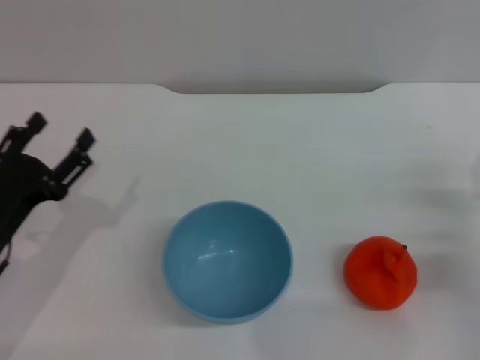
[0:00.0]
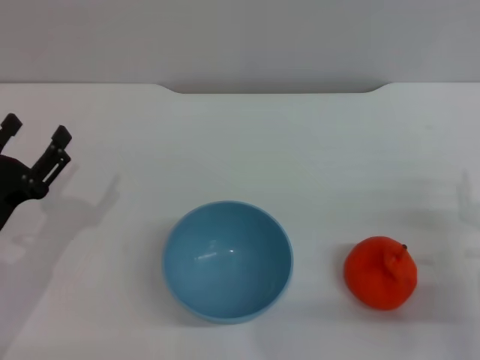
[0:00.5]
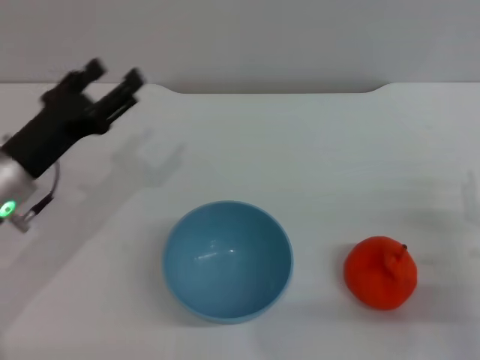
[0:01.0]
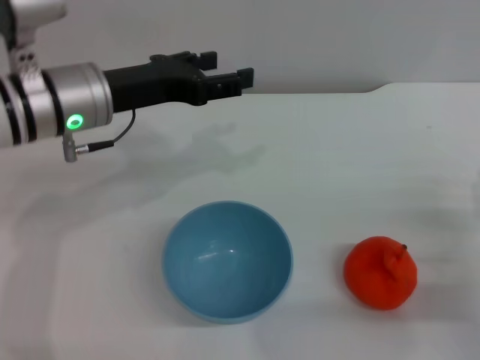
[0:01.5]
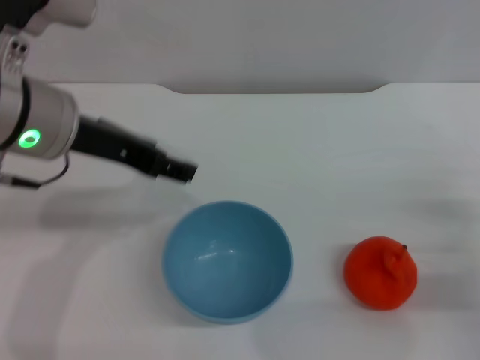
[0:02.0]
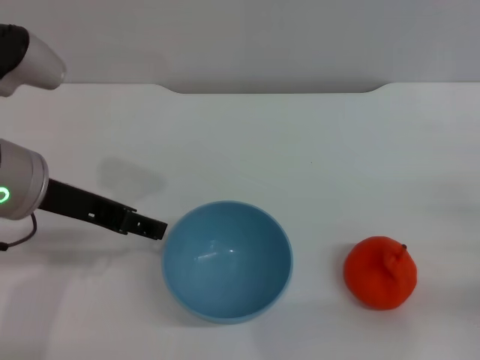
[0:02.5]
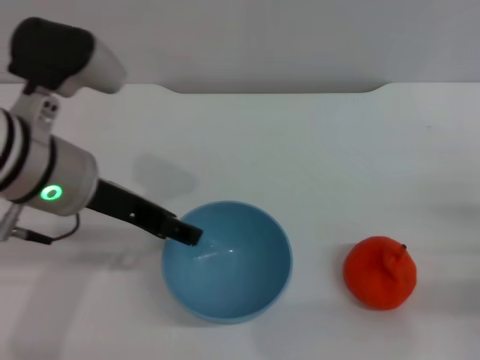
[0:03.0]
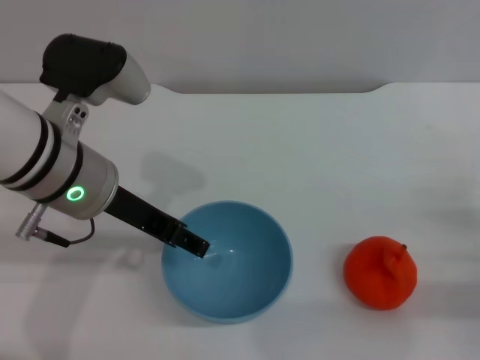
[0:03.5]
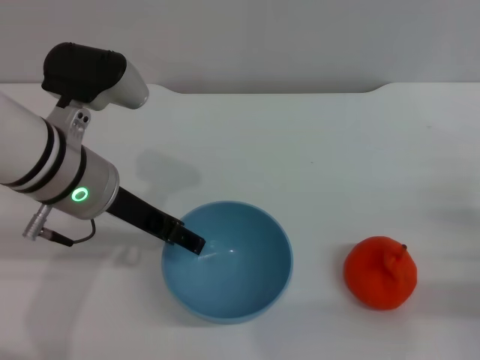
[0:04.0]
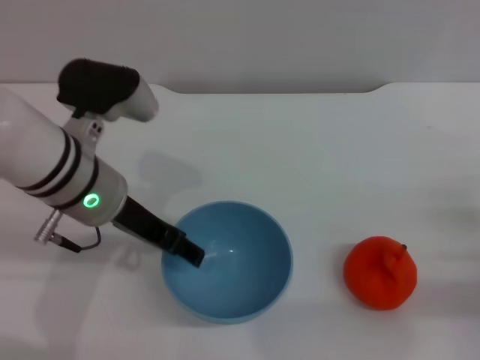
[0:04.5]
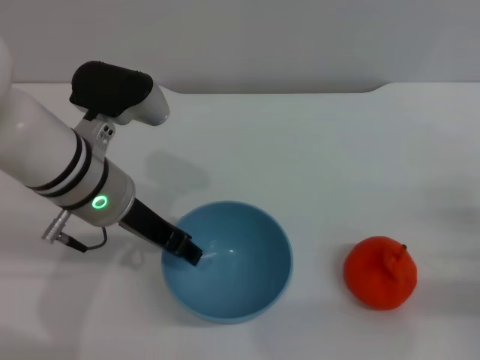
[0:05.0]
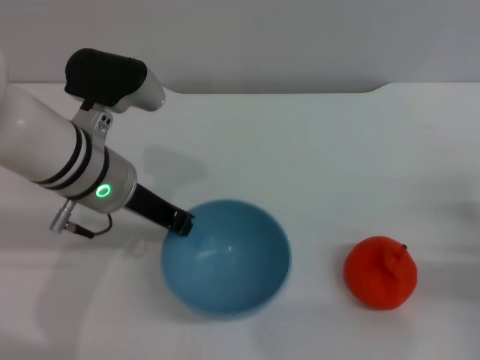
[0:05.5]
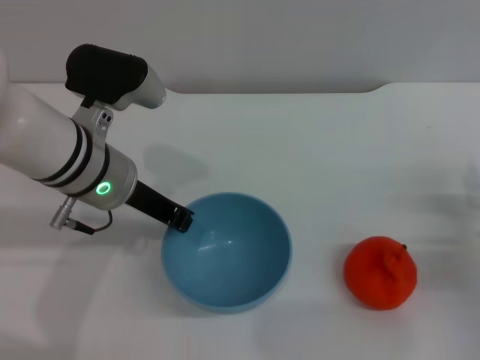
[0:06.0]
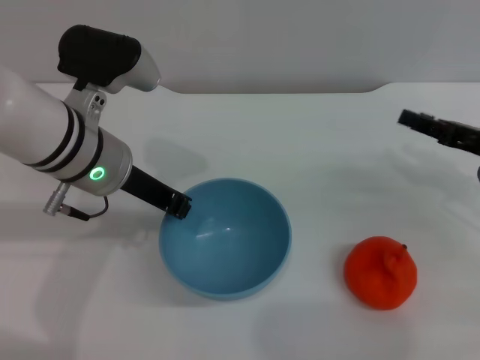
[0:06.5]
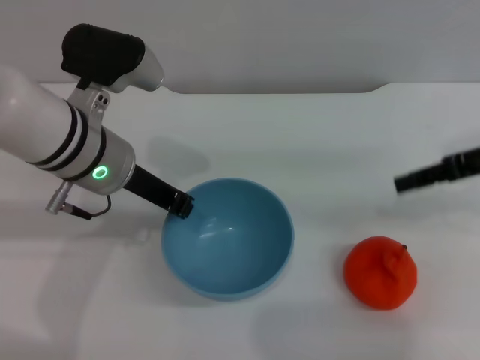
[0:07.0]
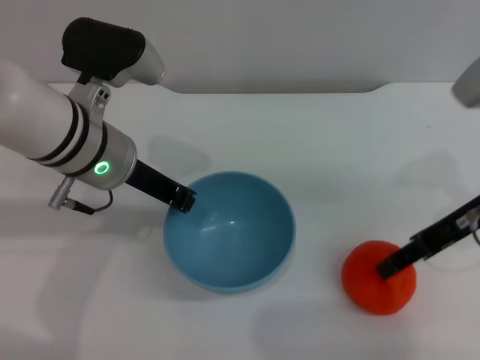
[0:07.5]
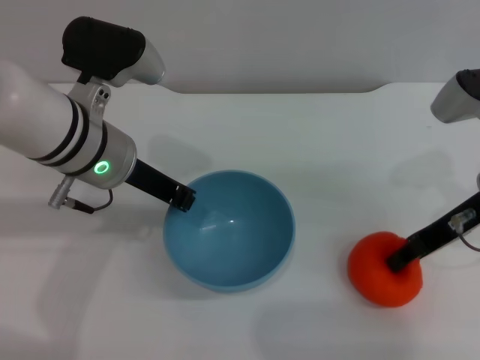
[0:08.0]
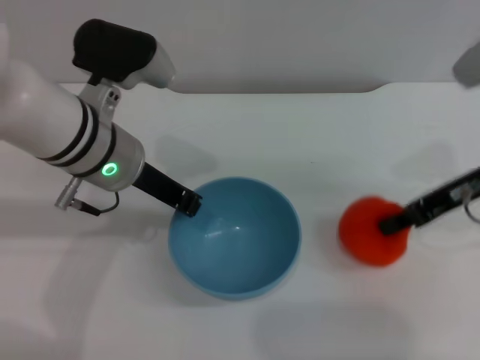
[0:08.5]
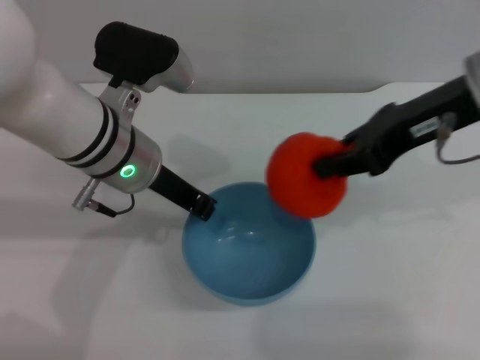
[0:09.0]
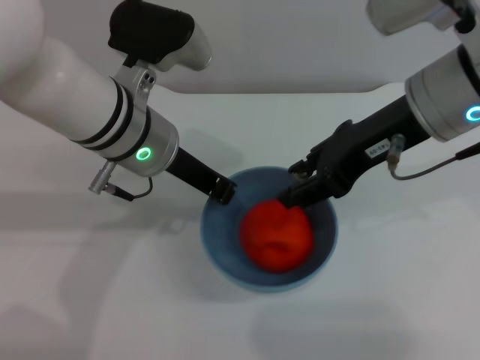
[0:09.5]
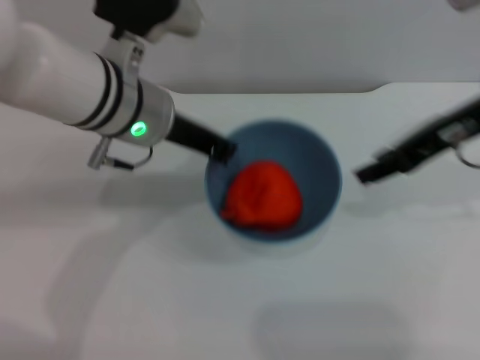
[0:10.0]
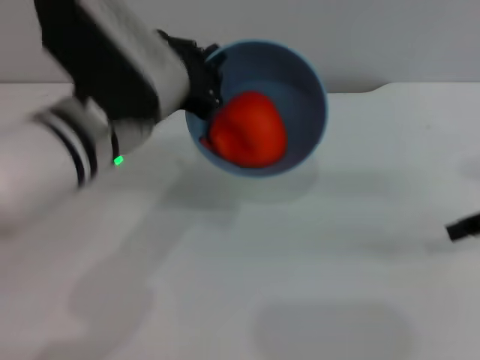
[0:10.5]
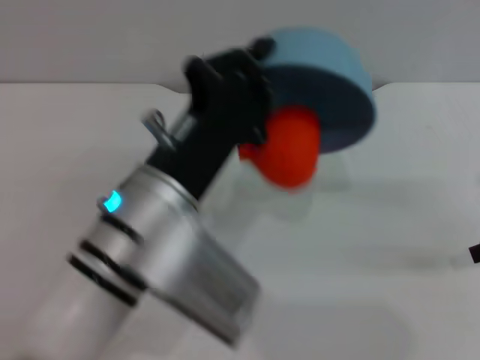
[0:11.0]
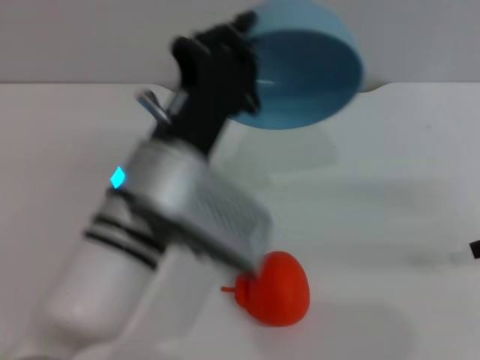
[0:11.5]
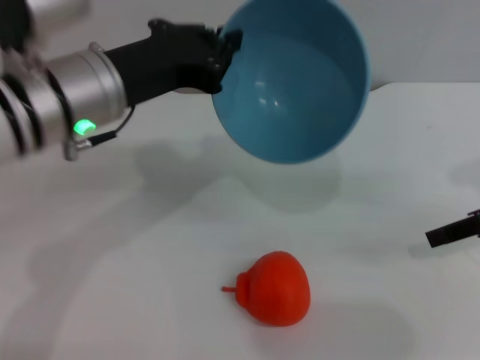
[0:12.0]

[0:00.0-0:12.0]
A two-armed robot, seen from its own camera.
Task of the whole recording: put the orange into the blue bowl and pour it out repeatedly.
Step, 0.0 to 6.5 s: Pick up the bowl with the left gripper.
Step, 7.0 to 8.5 s: Pick up the orange with the right gripper.
Step, 9.0 to 9.5 s: Place the orange into the bowl.
Step, 10.0 to 11.5 s: Pour the orange out of the bowl.
0.0 to 2.0 s: The left gripper heads upward, to the right and forward, covering approximately 20 cm.
2.0 to 4.0 s: The left gripper shifts some 5 cm downward.
4.0 to 6.0 s: The left gripper closes.
6.0 to 8.0 s: The right gripper travels upward, forward and to the left by approximately 15 cm.
8.0 to 10.0 s: The right gripper moves upward, about 10 cm, and closes, then reopens.
10.0 to 12.0 s: The right gripper shifts some 10 cm to the right and downward. Meanwhile the left gripper moves roughly 15 cm backward and comes back.

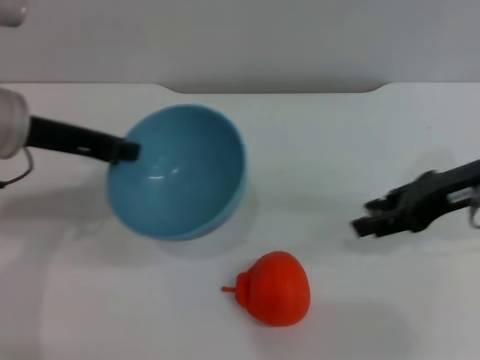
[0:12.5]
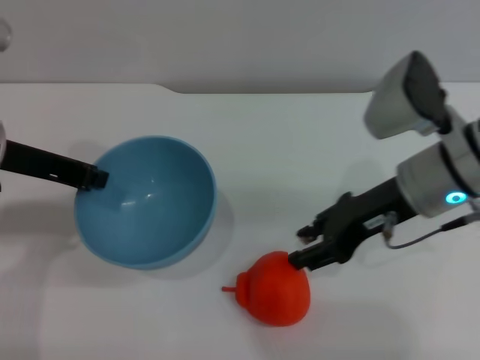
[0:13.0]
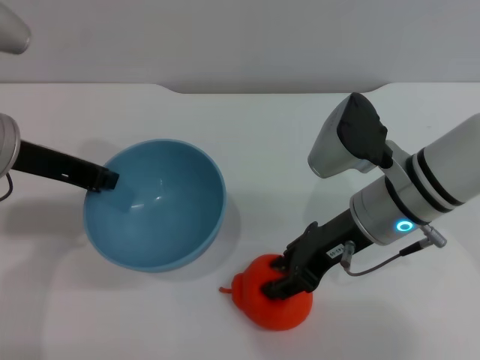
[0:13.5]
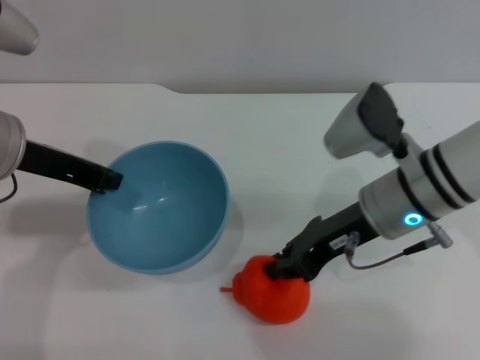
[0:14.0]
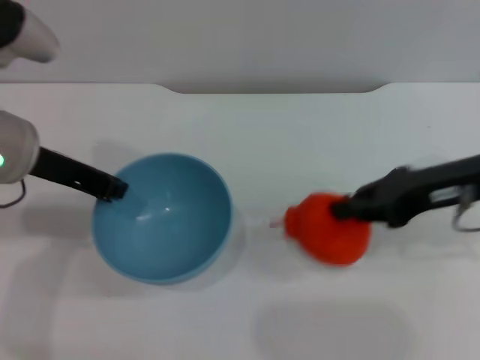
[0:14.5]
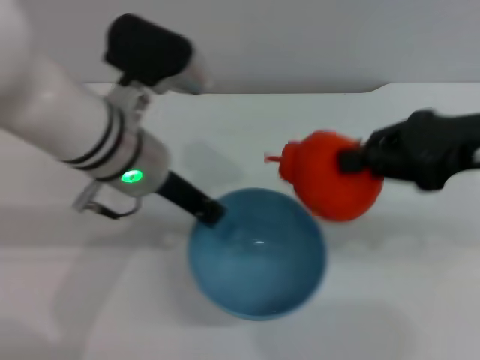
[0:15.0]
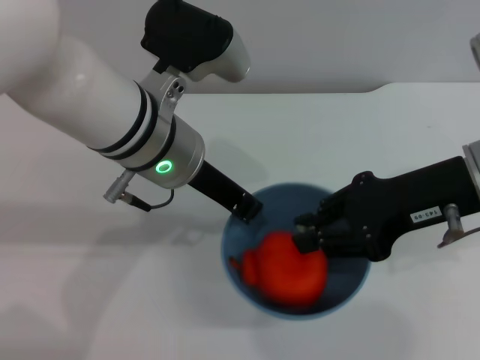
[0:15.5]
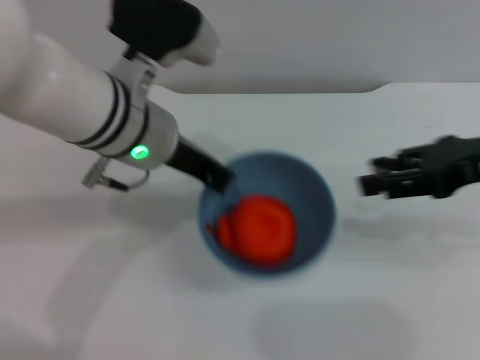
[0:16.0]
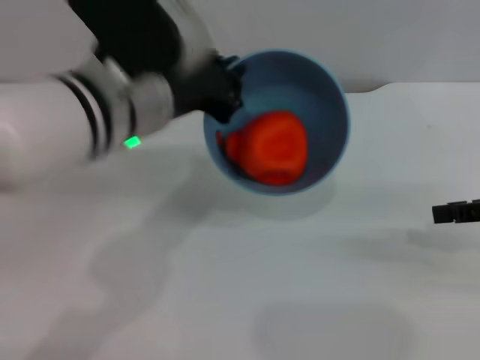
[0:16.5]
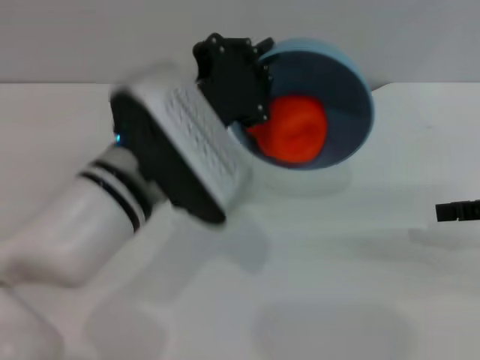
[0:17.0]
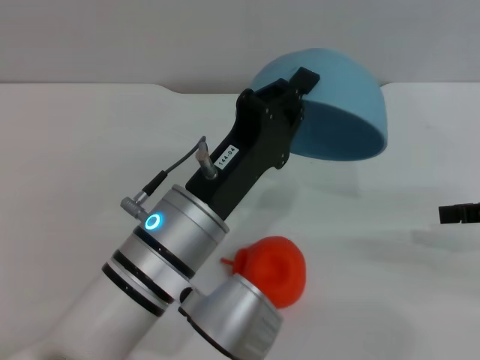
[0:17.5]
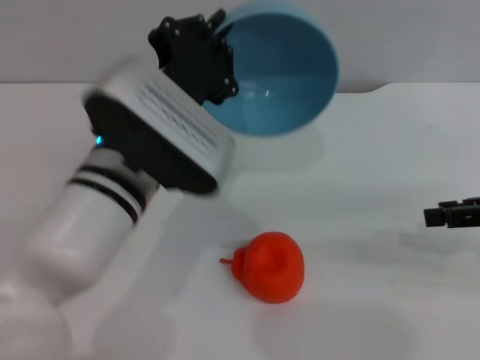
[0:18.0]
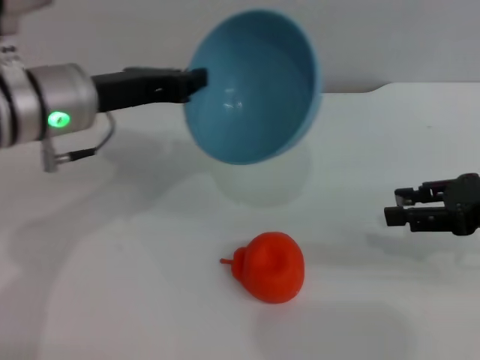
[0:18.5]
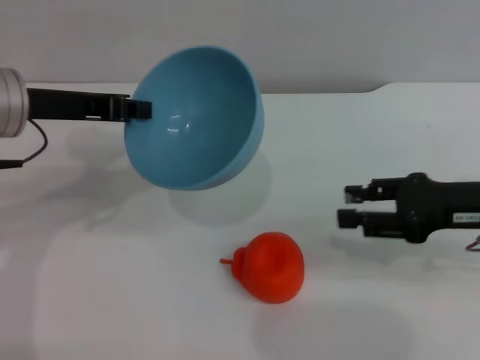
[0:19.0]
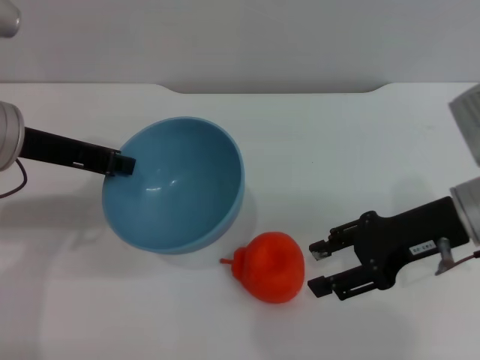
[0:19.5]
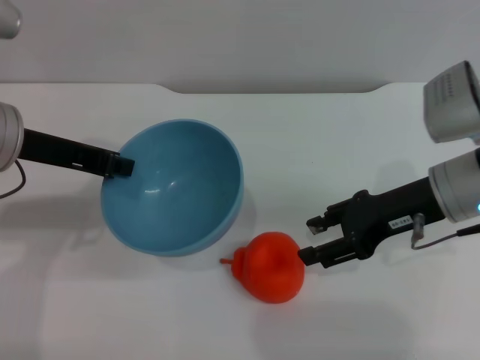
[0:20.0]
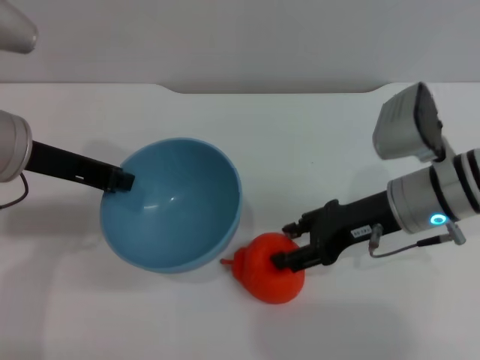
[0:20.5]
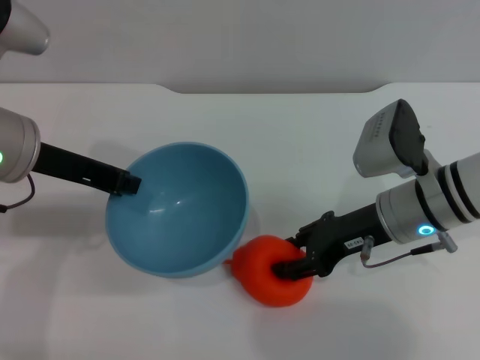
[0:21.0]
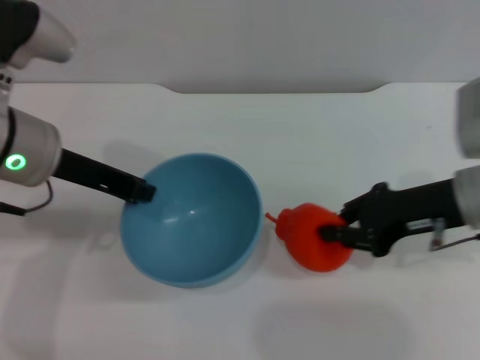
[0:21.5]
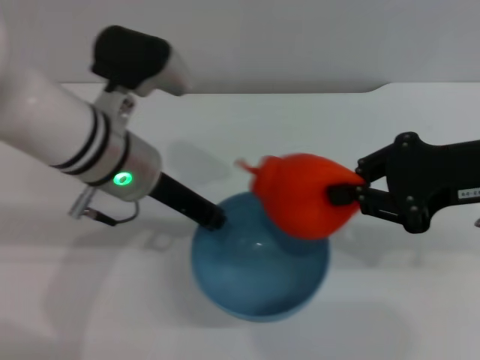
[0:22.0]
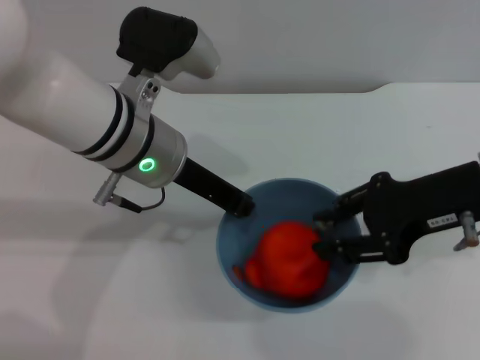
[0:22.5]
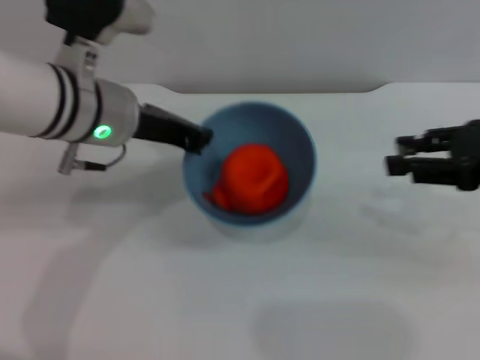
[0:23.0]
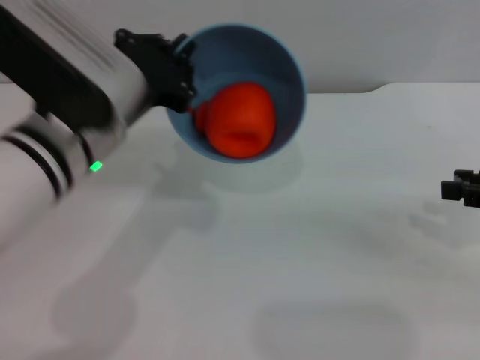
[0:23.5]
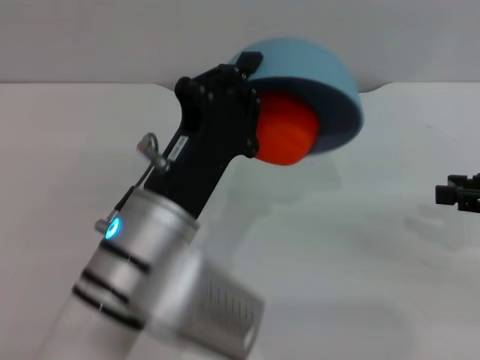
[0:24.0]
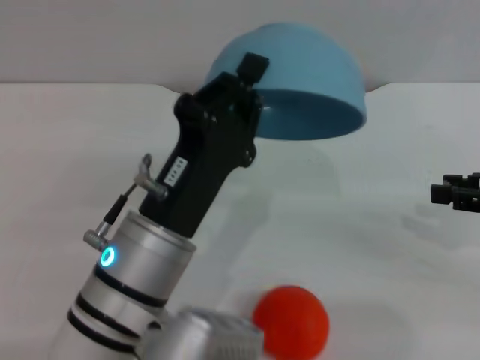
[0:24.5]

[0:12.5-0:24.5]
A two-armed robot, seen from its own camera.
Task of the whole recording: put the orange into the blue bowl and pour it out repeatedly.
Step, 12.5 to 14.0 s: Pick up the orange with the right gripper.
Step, 14.5 to 15.5 s: Place the orange into the bowl.
Step, 16.0 to 17.5 s: Pour the orange out of the bowl.
Step, 18.0 to 21.0 s: Pick up the orange with the right gripper.
Step, 21.5 to 22.5 s: Place the orange into the bowl.
Step, 23.0 to 24.5 s: Pour the orange out of the bowl.
12.5 to 14.5 s: The right gripper goes to the left and returns, about 10 cm each way, and closes up.
14.5 to 16.5 s: The grippers both shift to the right by approximately 10 cm. The right gripper opens its fingers.
16.5 to 18.5 s: The left gripper goes roughly 10 cm to the left.
18.5 to 20.5 s: The right gripper travels to the left and downward by some 15 cm.
20.5 to 22.5 s: The right gripper travels upward by about 10 cm, and closes its fingers. Meanwhile the left gripper heads to the right, covering about 10 cm.
22.5 to 24.5 s: The left gripper moves backward and downward, about 15 cm, while the right gripper shifts some 10 cm to the right.

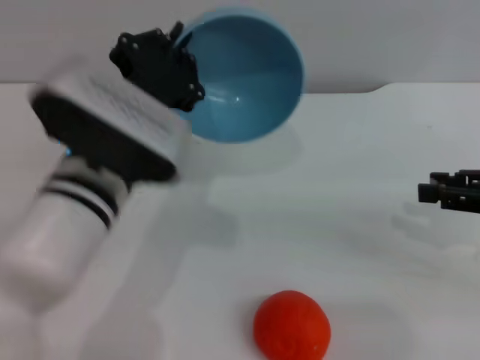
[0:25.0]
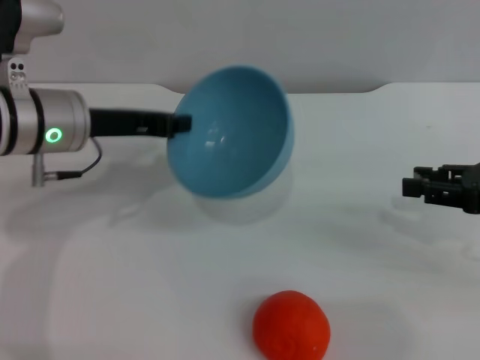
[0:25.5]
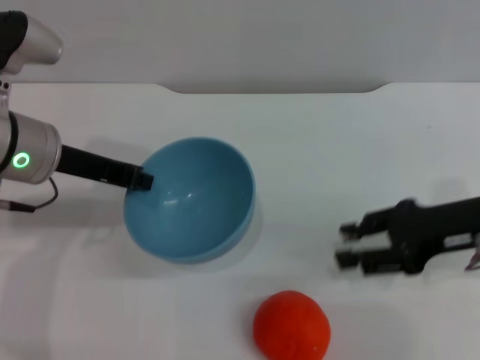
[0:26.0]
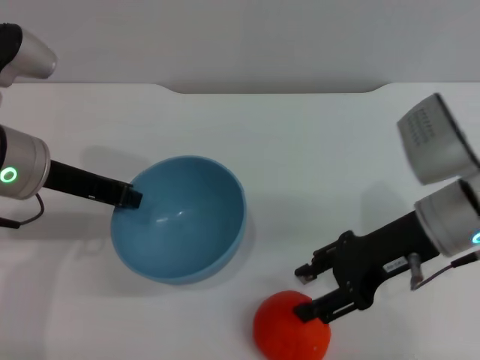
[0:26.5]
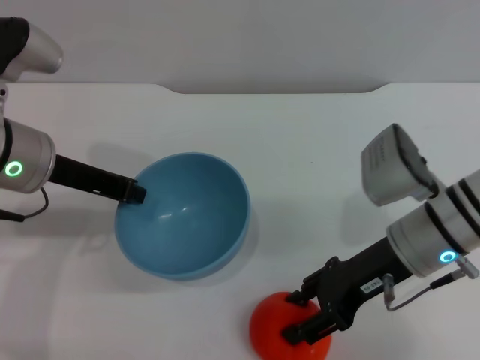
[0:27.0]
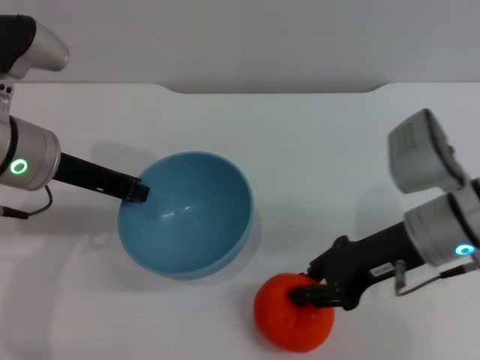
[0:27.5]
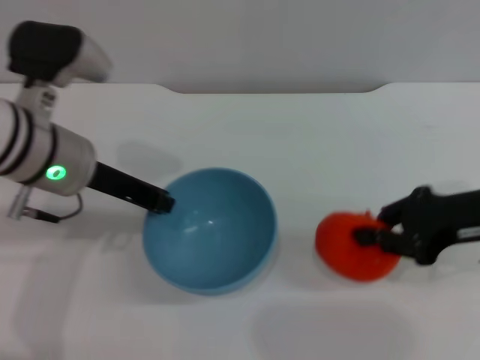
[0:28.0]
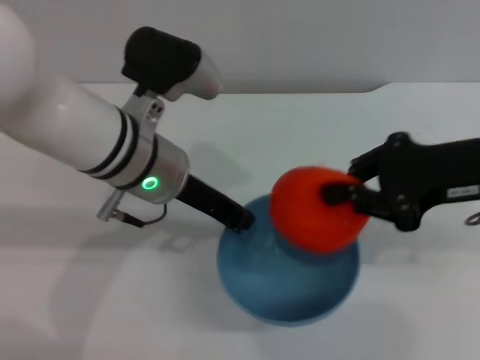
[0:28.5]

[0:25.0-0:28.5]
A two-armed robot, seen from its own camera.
Task of the whole recording: put the orange into the blue bowl and pour it out repeatedly.
Step, 25.0 to 27.5 s: Pick up the orange with the right gripper.
25.0 to 27.0 s: The left gripper travels to the left and forward by approximately 10 cm, while the right gripper shifts some 15 cm to the left.
27.0 to 28.5 s: The left gripper shifts about 10 cm to the right. The right gripper goes some 15 cm upward and to the right, and closes up.
